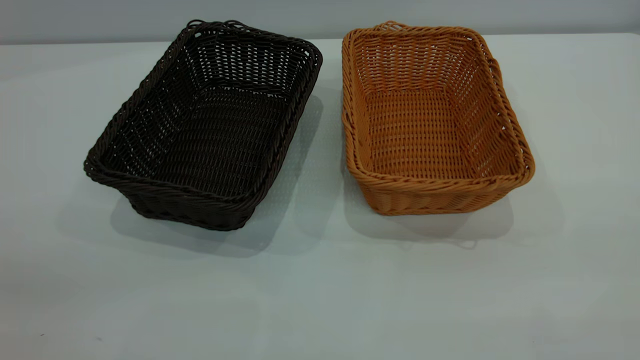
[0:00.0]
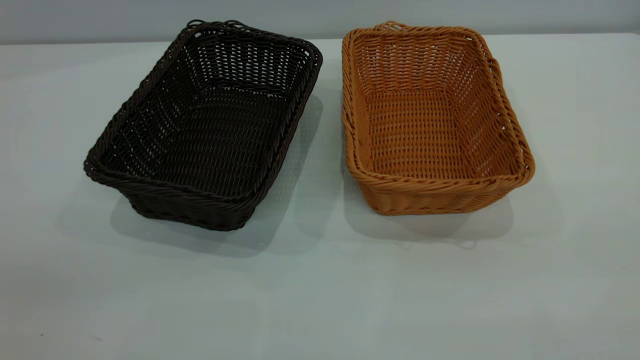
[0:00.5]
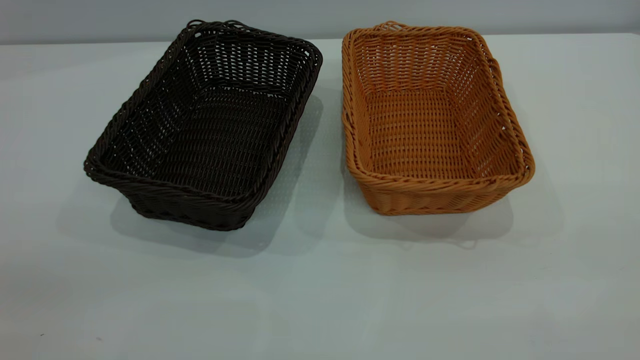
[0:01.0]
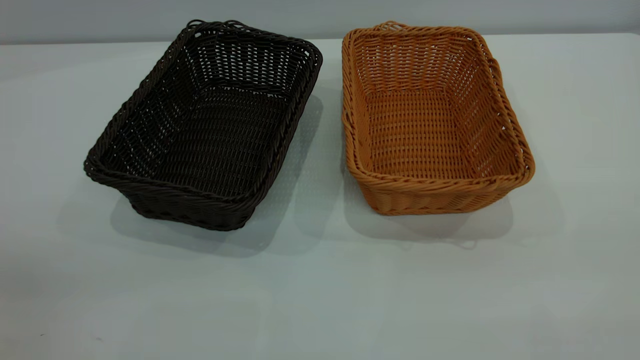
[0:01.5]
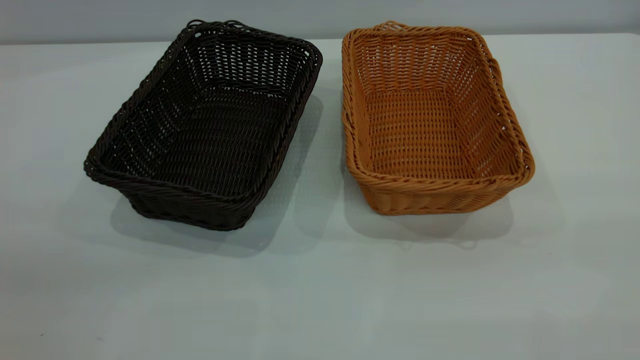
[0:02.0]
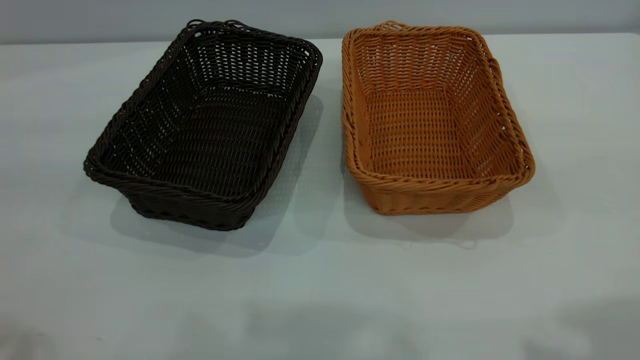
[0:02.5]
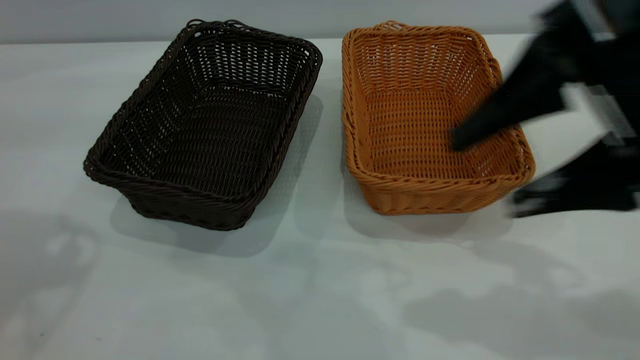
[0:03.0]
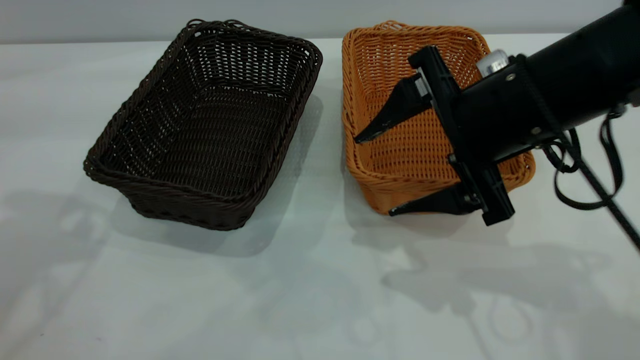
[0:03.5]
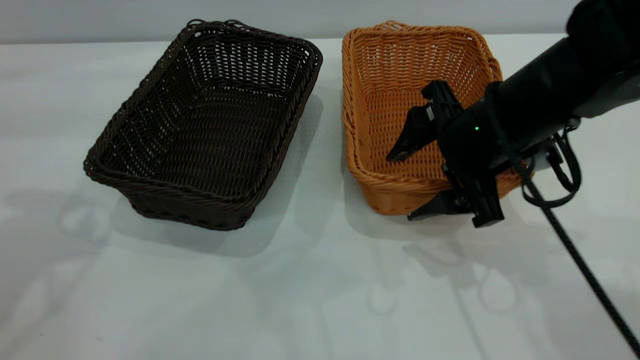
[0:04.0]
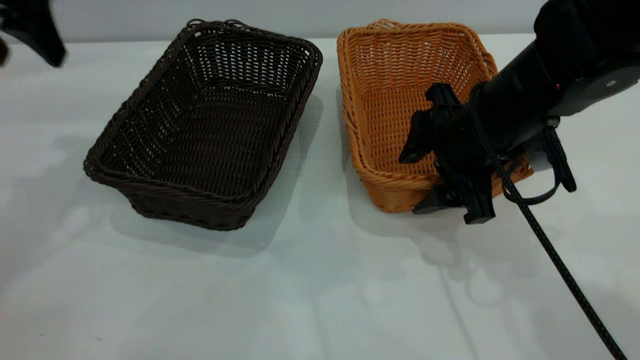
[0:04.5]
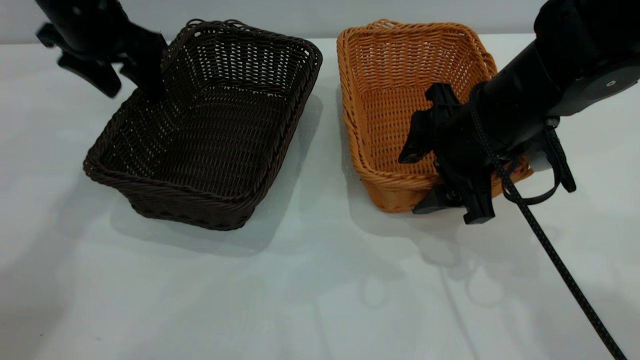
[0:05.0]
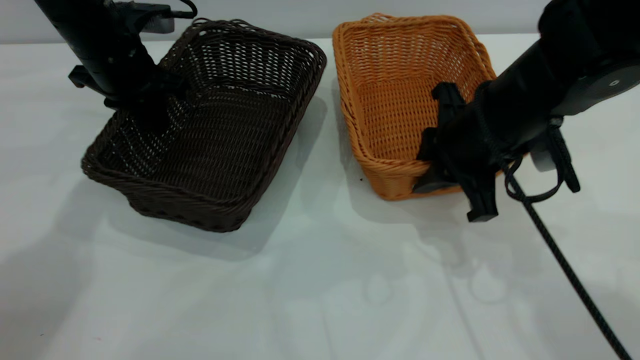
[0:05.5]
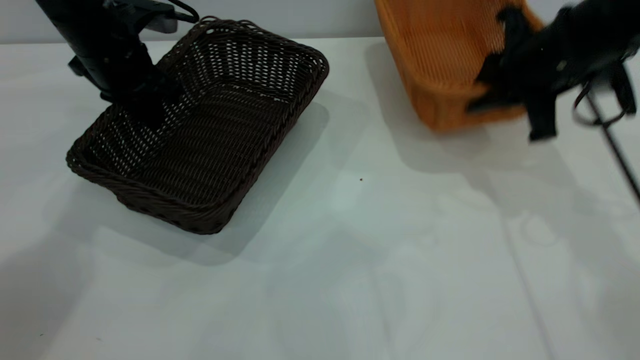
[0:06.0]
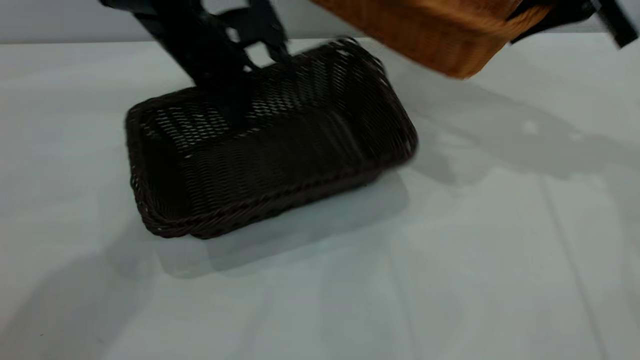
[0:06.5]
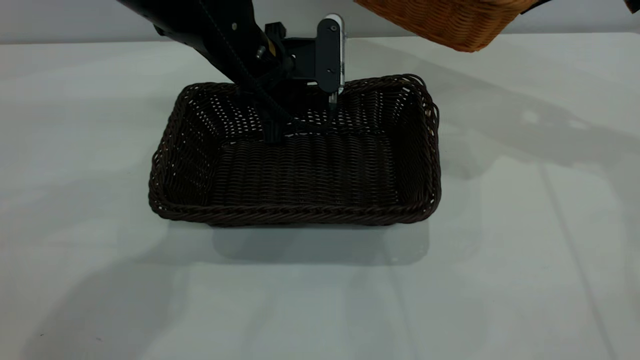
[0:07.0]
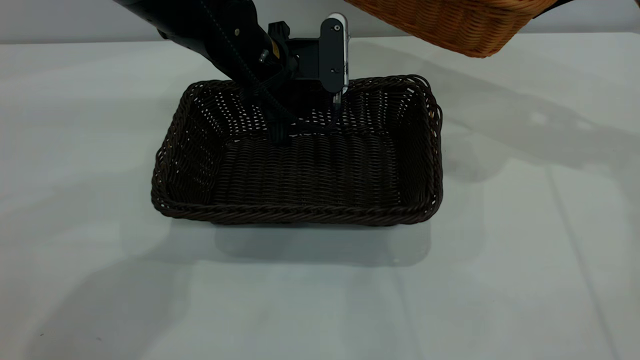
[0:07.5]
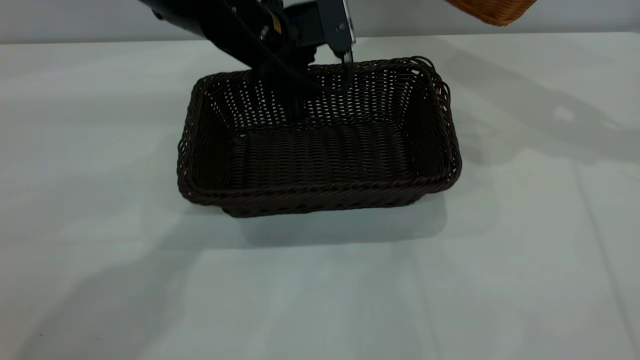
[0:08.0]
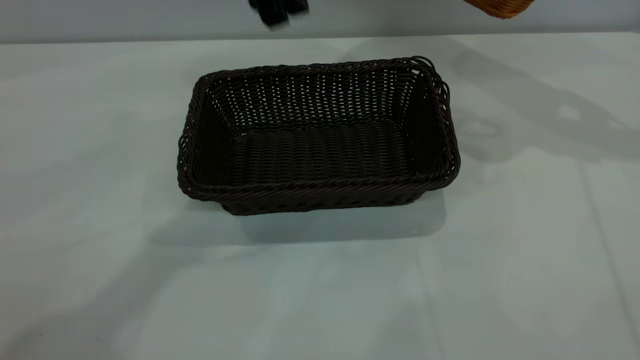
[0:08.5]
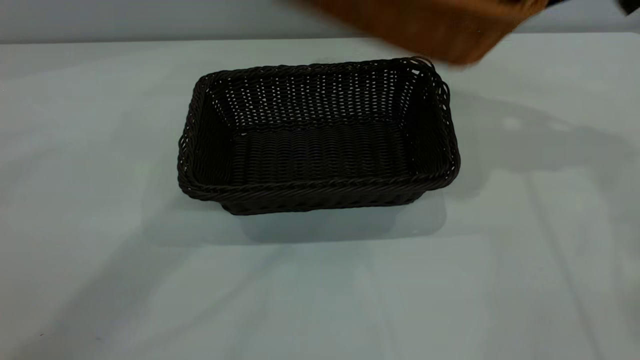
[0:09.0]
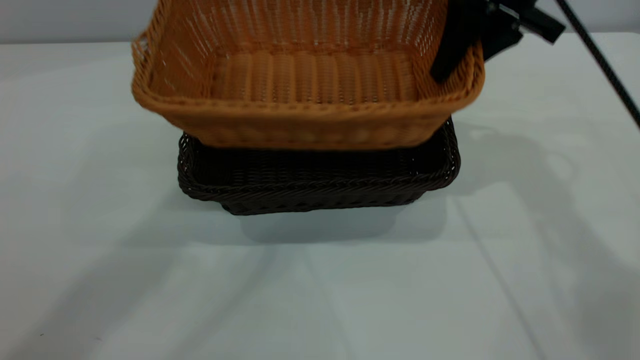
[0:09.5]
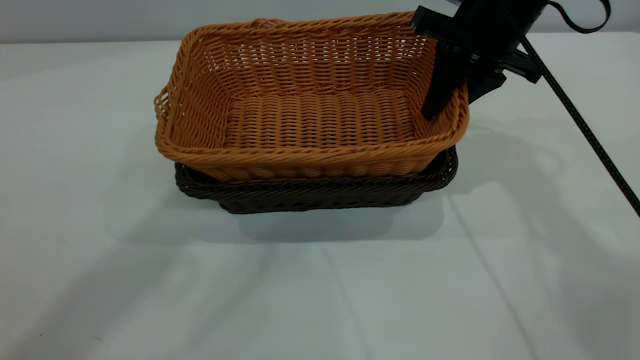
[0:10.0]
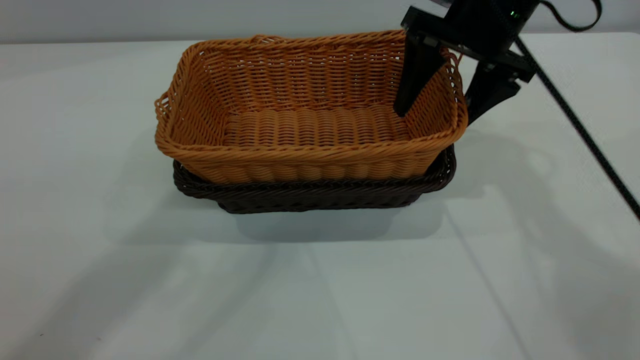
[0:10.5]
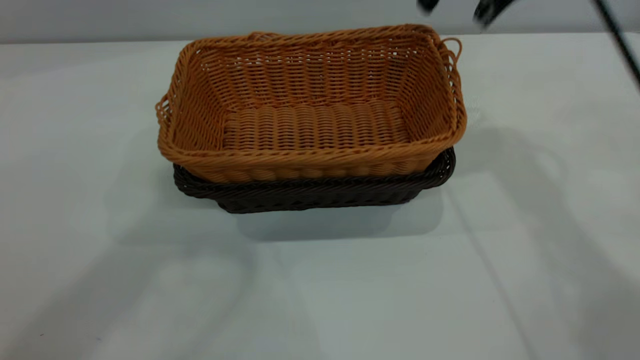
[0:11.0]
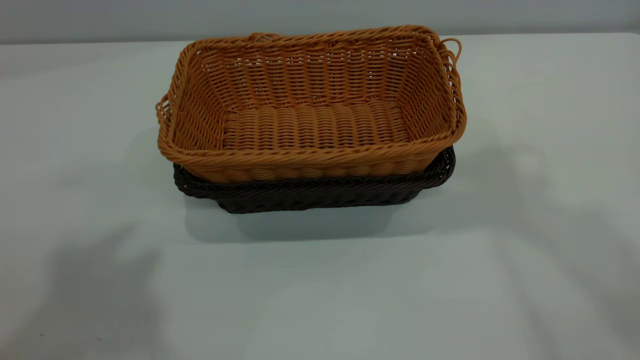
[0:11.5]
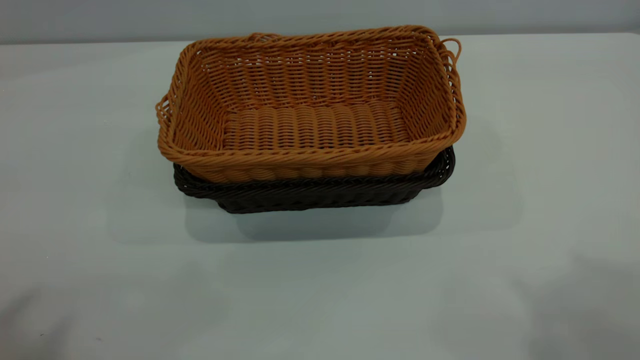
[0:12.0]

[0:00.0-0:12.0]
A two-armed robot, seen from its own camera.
Task of the whole recording: the left gripper grasp the black basket and place it in the center of the table, the right gripper grasp the brown basket and place it inside the black one.
Step, 0:00.0 to 0:06.0: Pick up the light basket with the right gripper.
Step, 0:06.5 to 0:08.0: Move the dark basket to the center of view.
Step, 0:08.5 to 0:10.5: Place the light basket on the dark basket.
0:02.0 to 0:04.0: The right gripper shifts some 40 cm forward, downward and to the left, while the left gripper is displaced forward by roughly 30 cm, and opens up.
0:04.0 to 0:06.0: The right gripper travels to the right and forward by approximately 10 cm, and closes up; the left gripper travels downward, forward and to the right by some 25 cm, and closes.
0:06.0 to 0:08.0: The right gripper shifts about 15 cm upward, to the right and forward. The left gripper travels to the right by some 15 cm, and opens.
0:08.0 to 0:10.0: The left gripper shifts approximately 35 cm upward. The right gripper moves to the left and downward, roughly 20 cm.
0:10.0 to 0:12.0: The right gripper goes some 40 cm upward and backward, and opens its fingers. Meanwhile the left gripper goes some 25 cm backward and to the left.

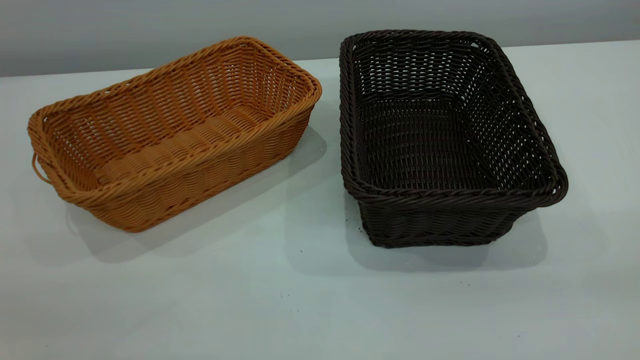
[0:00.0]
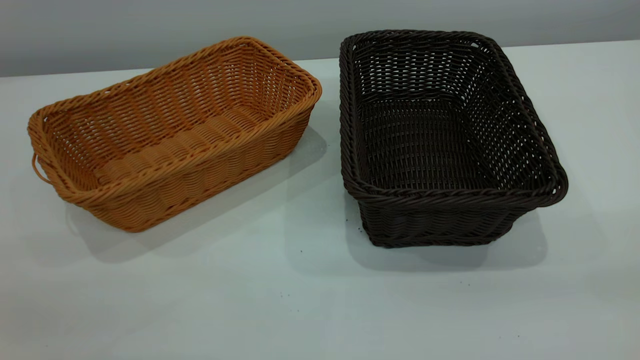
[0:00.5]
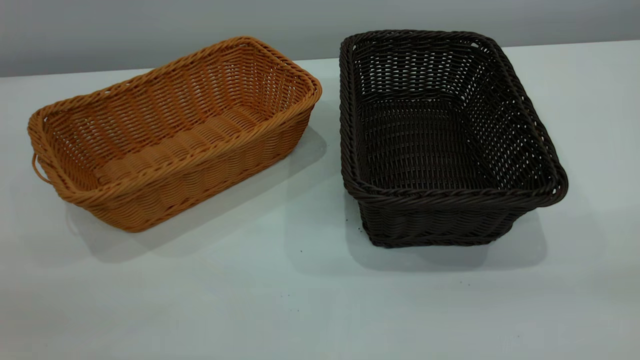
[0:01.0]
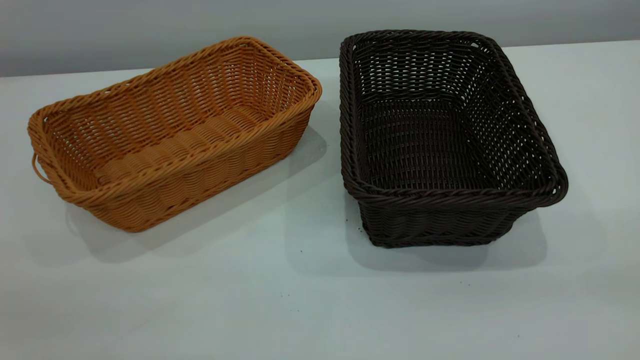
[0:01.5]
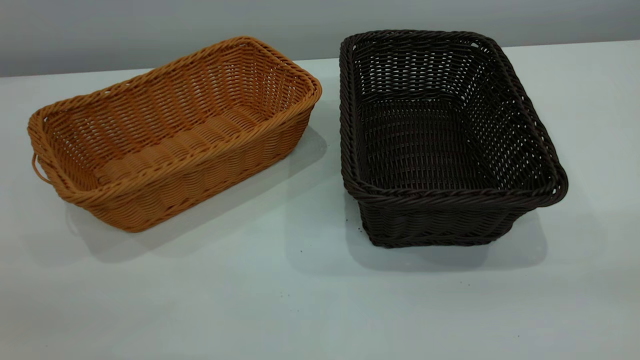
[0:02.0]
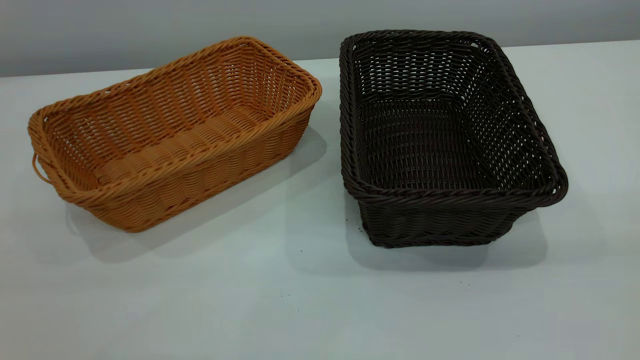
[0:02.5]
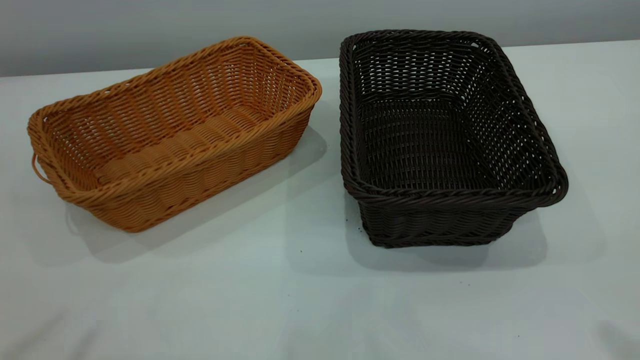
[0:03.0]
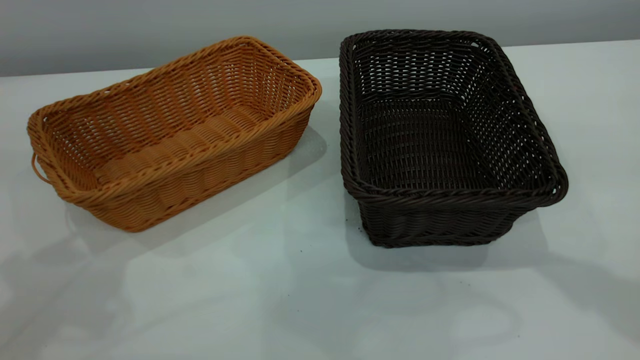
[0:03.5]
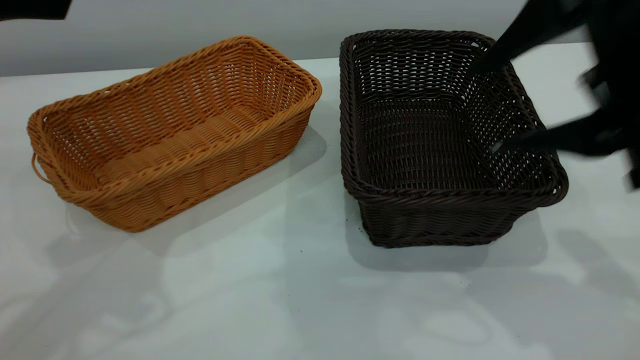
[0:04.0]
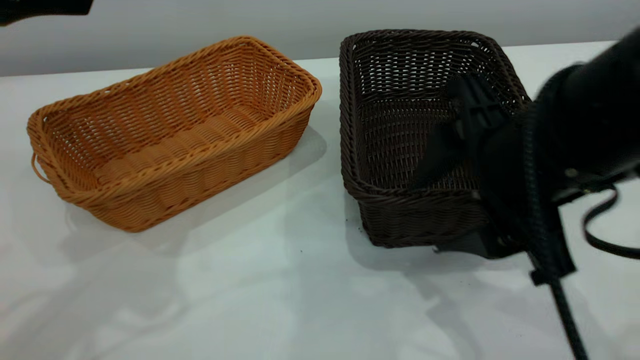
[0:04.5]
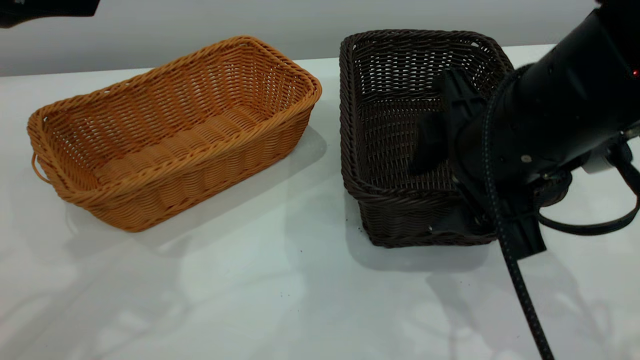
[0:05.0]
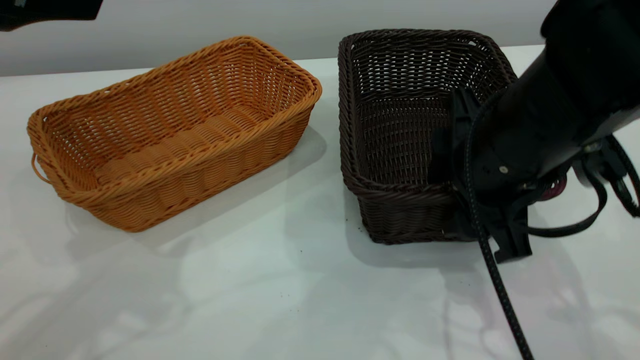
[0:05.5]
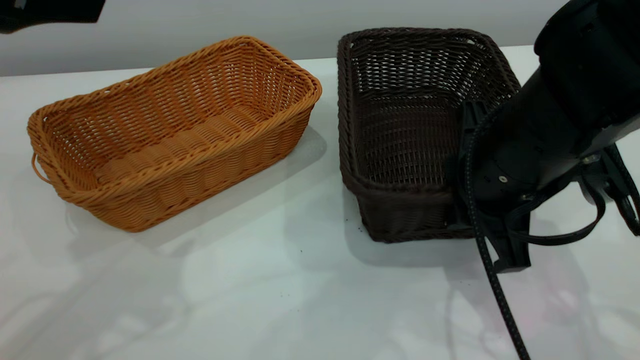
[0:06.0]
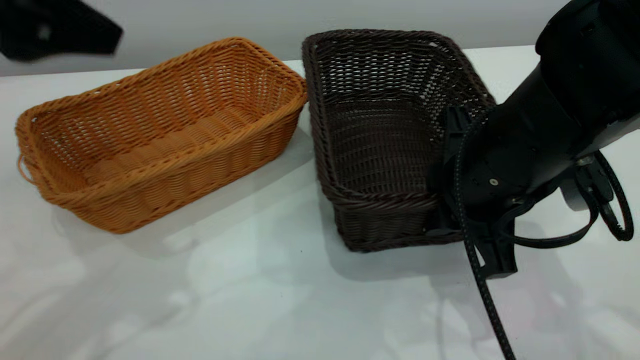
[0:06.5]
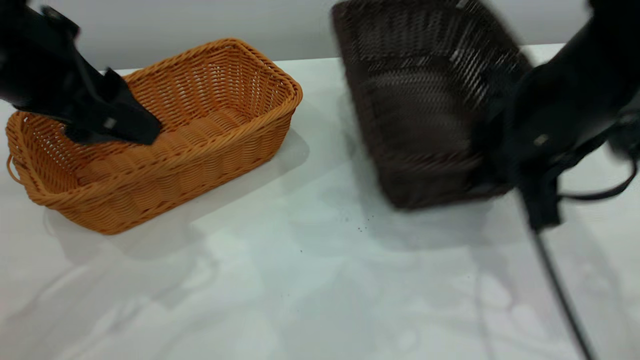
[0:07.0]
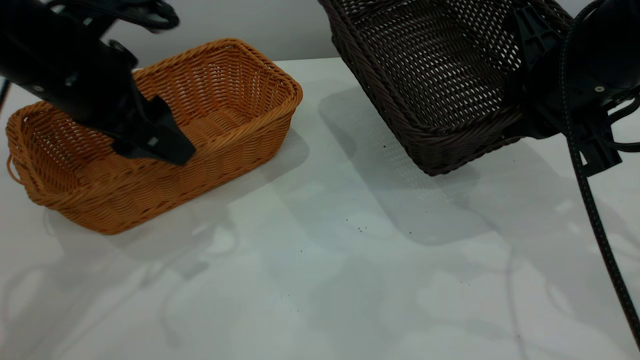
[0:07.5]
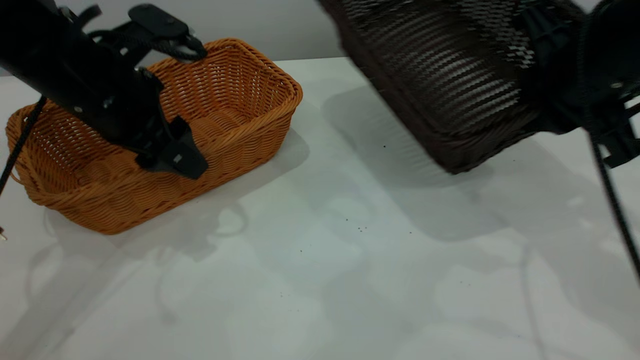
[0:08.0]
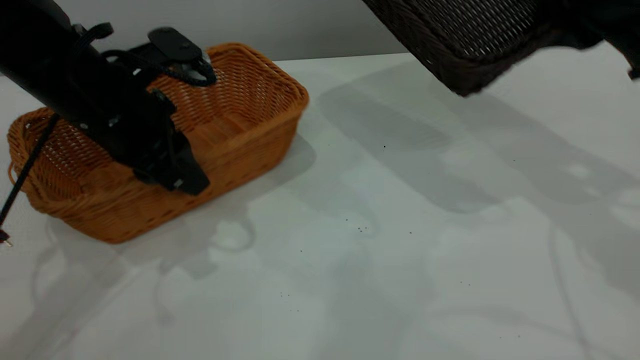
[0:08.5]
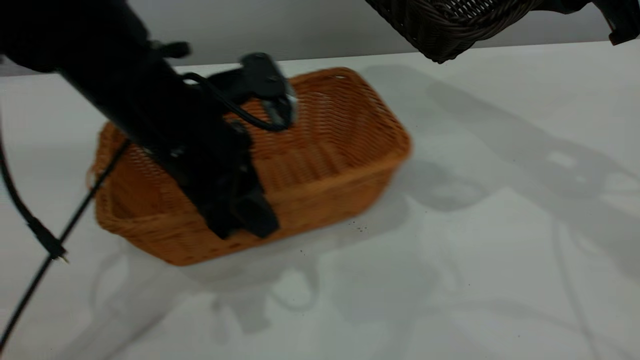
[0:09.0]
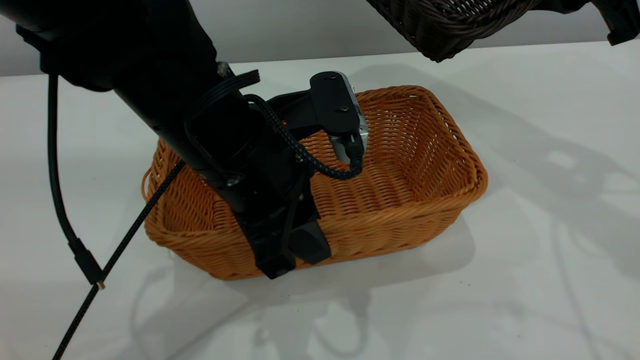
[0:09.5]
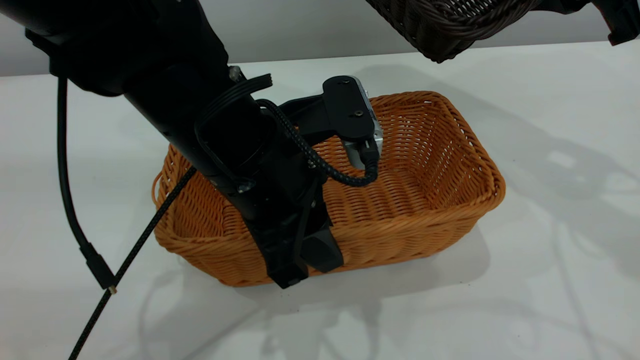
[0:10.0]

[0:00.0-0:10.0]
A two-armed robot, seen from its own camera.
Task of the whole recording: the left gripper grasp the brown basket and place it in the center of the table, the right gripper grasp the black basket and place it inside the brown one.
Step, 0:00.0 to 0:07.0: Pick up the light basket with the right gripper.
0:00.0 to 0:02.0: Neither gripper changes place.
0:02.0 to 0:04.0: The right gripper heads forward, to the left and downward, covering some 25 cm, and opens its fingers.
0:04.0 to 0:06.0: The right gripper goes about 10 cm downward and forward, and closes up.
0:06.0 to 0:08.0: The right gripper travels to the right and upward by some 10 cm; the left gripper moves downward and forward, roughly 20 cm.
0:08.0 to 0:10.0: The left gripper moves to the right and backward, about 15 cm, and closes. Meanwhile the right gripper goes about 5 cm upward.
